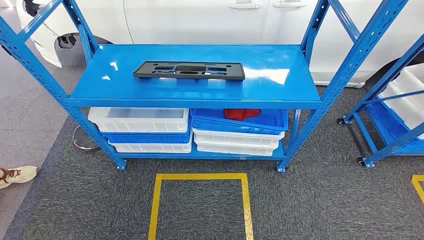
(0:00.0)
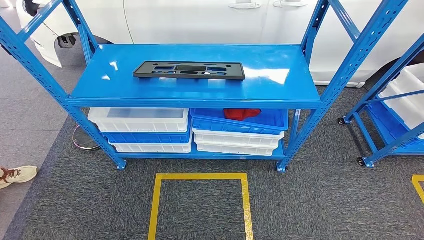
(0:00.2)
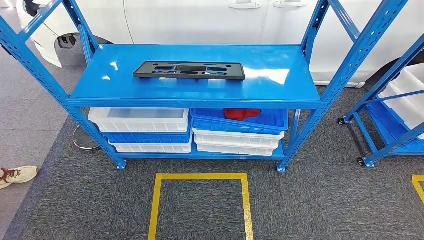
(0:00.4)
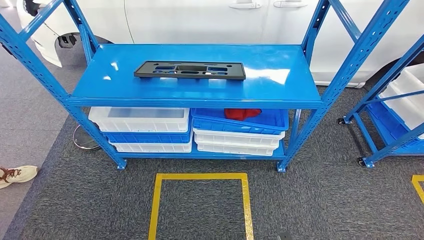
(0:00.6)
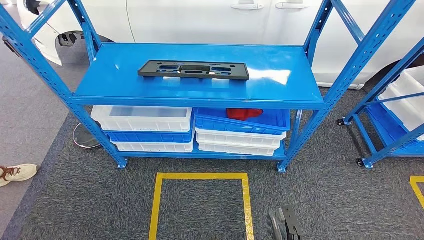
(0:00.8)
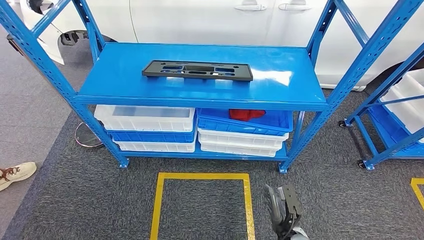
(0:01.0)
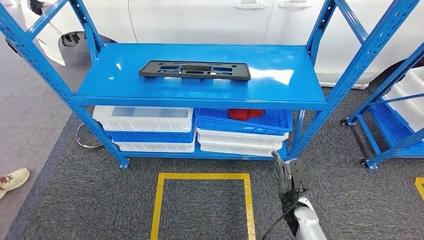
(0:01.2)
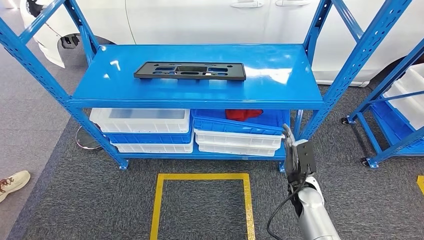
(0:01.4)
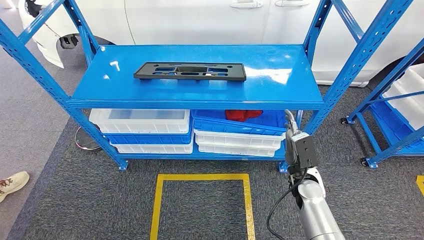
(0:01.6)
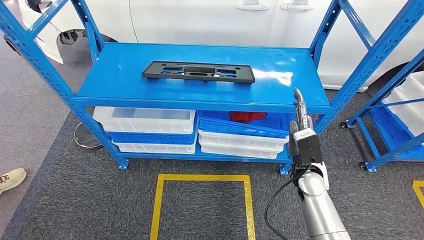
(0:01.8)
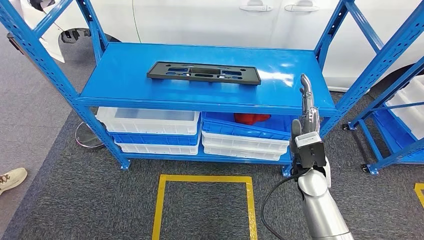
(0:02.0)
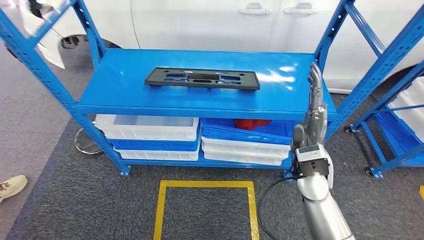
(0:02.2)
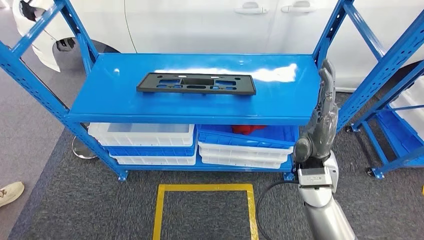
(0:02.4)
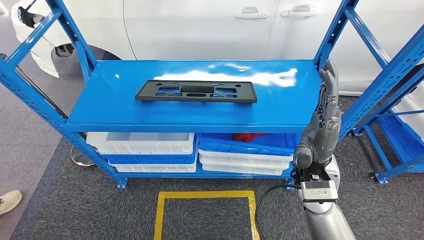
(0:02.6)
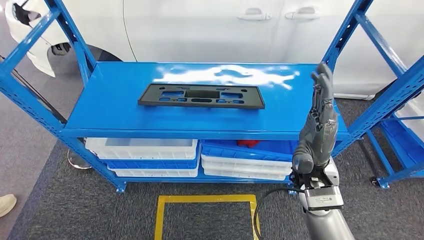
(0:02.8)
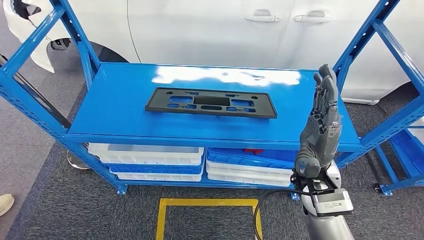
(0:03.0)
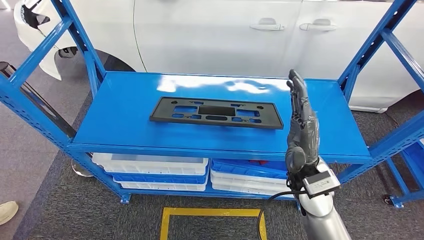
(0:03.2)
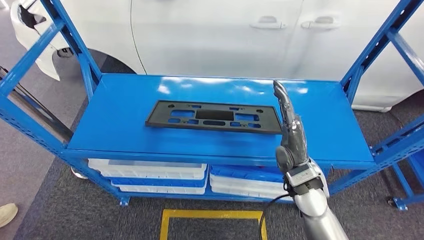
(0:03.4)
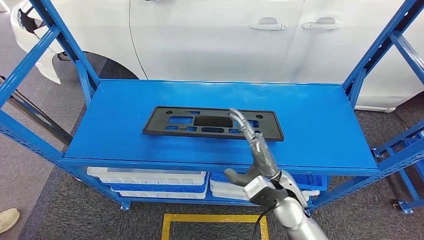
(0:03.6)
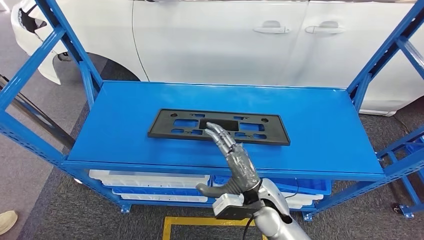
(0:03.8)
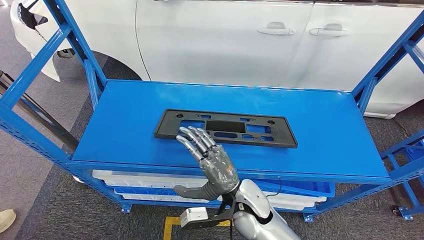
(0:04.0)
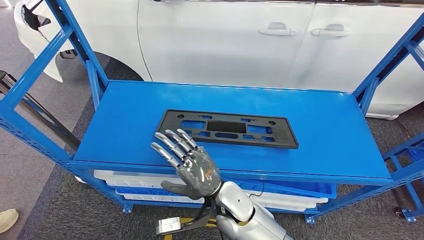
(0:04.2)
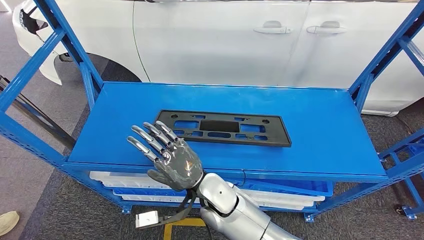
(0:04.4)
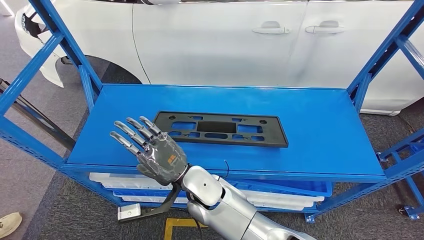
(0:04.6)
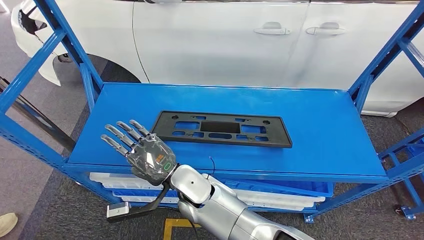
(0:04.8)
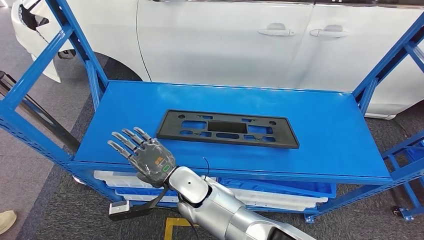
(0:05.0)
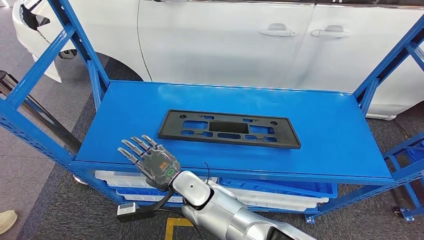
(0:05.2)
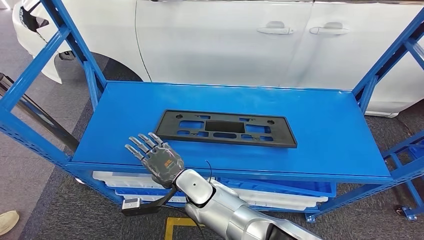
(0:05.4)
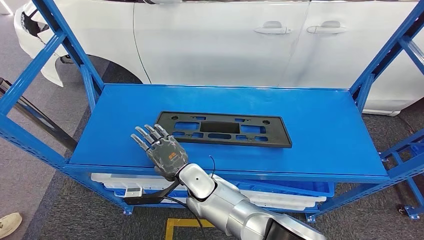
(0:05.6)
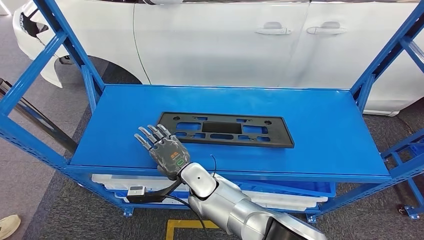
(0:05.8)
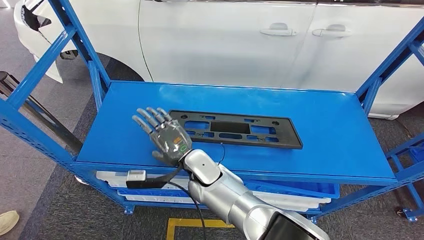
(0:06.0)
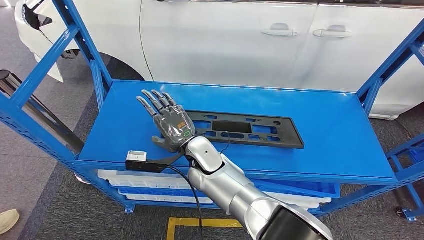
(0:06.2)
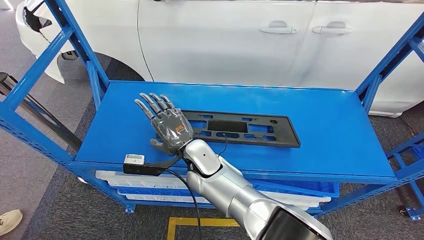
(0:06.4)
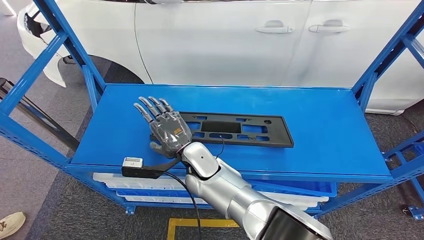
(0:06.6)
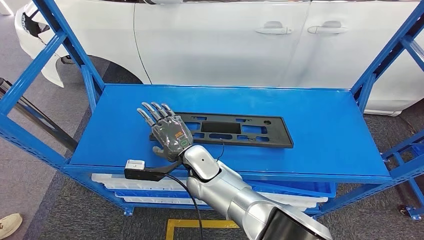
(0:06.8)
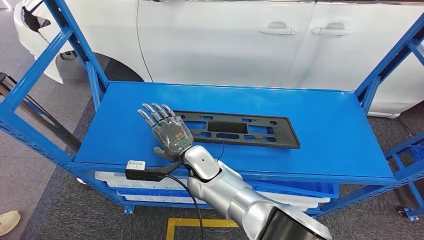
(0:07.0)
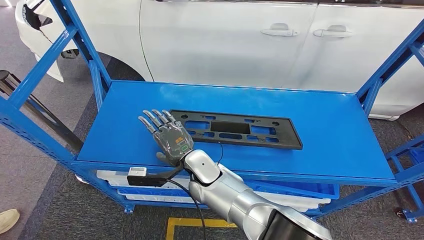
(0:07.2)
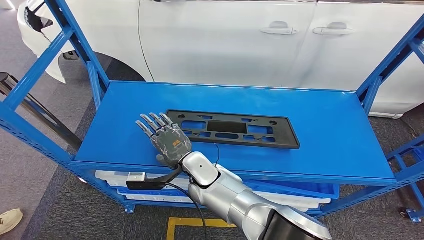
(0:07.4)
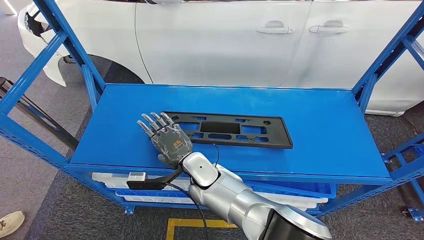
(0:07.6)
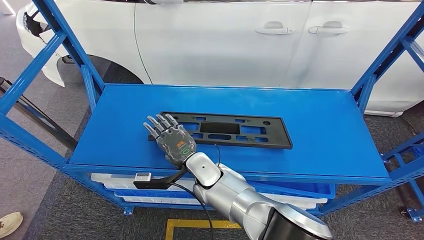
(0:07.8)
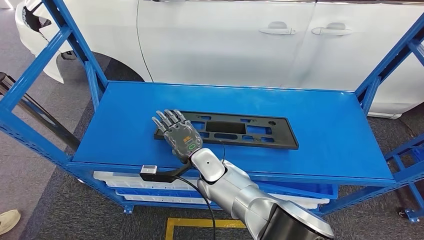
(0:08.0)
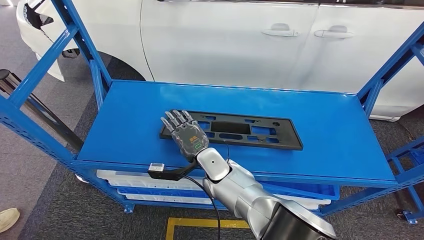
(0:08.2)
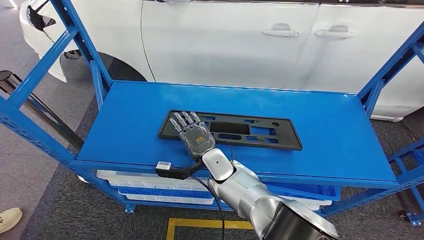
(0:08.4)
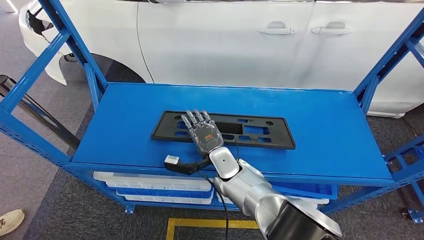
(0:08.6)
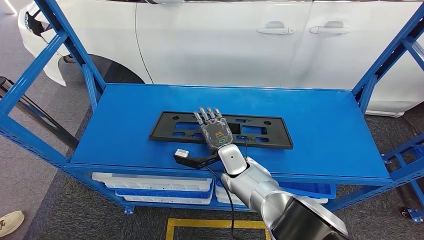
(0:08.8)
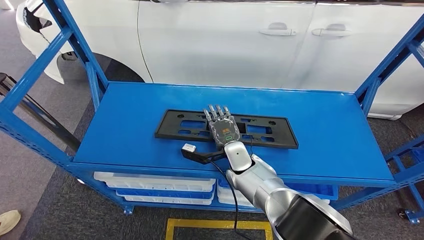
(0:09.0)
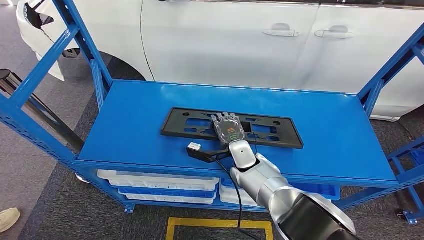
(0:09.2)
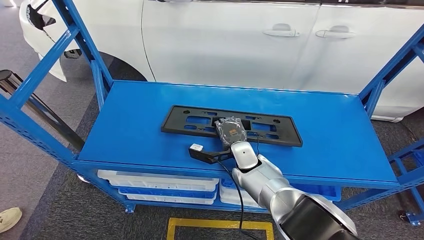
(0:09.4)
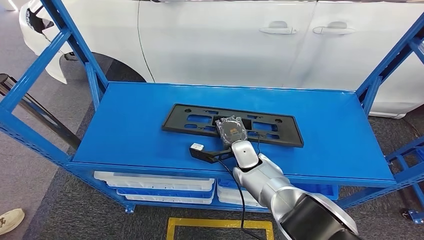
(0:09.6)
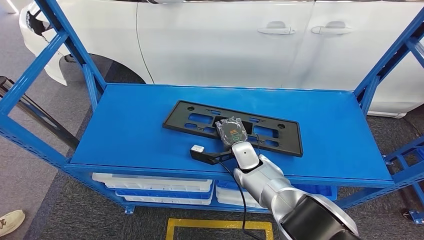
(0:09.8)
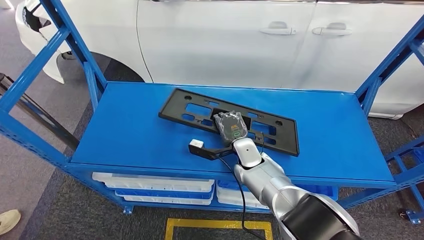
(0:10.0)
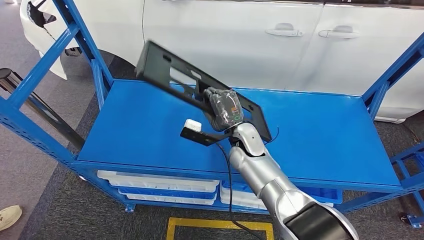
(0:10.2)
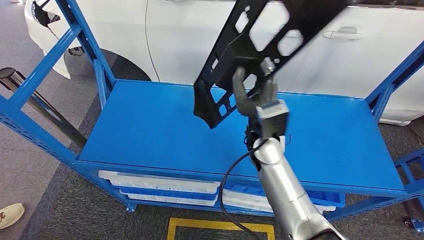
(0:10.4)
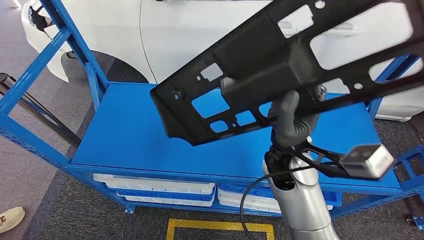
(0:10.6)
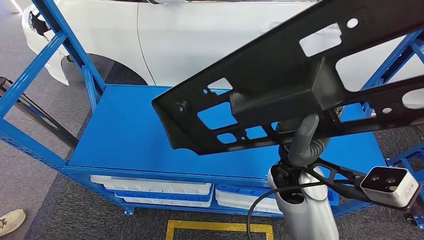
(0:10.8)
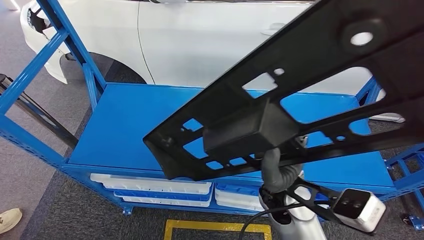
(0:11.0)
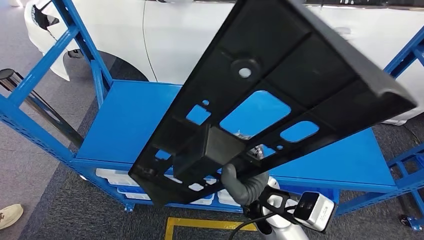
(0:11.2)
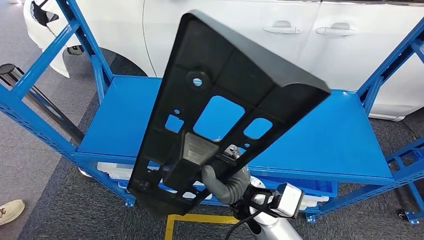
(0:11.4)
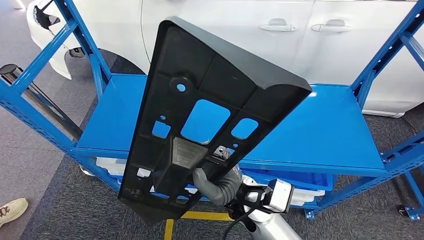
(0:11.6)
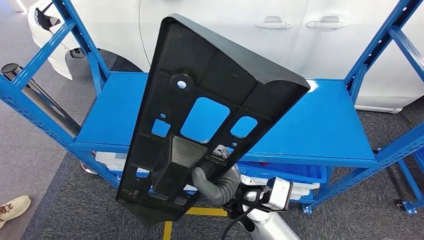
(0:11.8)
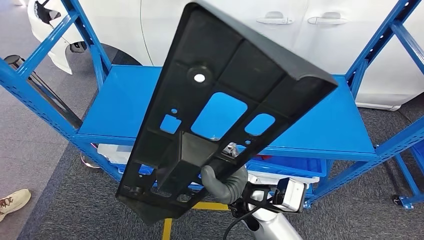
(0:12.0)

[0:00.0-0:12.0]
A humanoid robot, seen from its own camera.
Step, 0:00.0 to 0:10.2: Pick up the small parts from the shelf.
0:06.0 to 0:07.6: The hands move only a little.

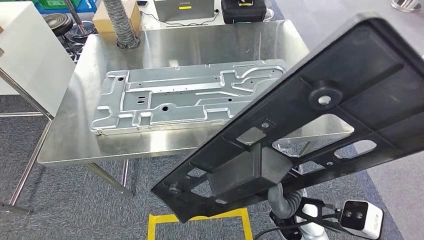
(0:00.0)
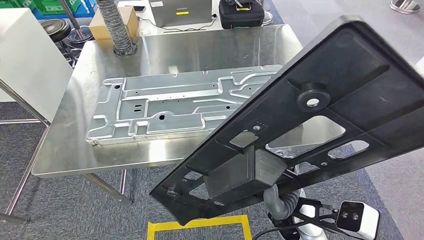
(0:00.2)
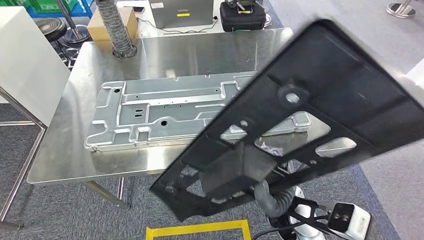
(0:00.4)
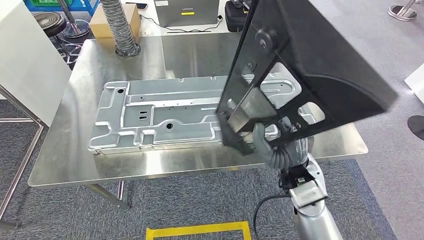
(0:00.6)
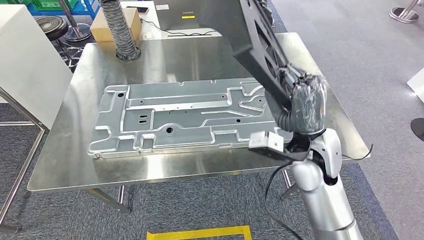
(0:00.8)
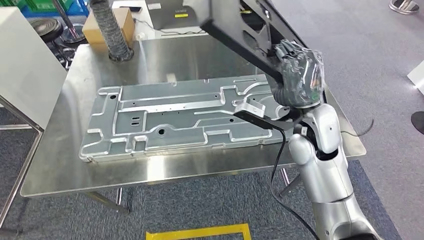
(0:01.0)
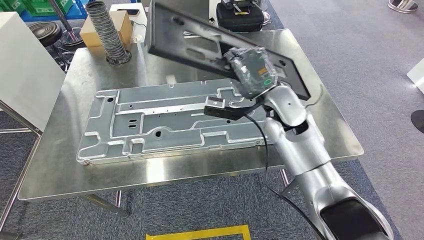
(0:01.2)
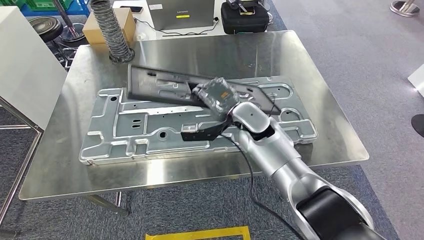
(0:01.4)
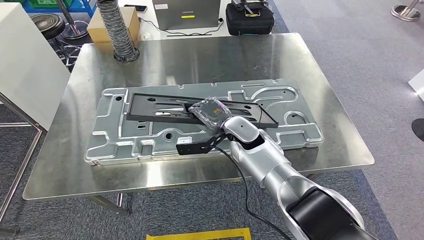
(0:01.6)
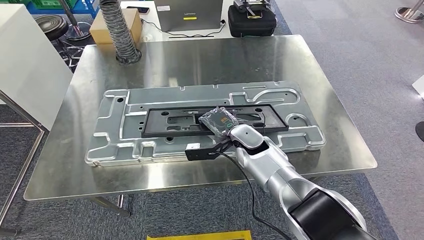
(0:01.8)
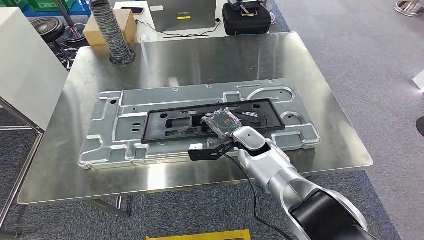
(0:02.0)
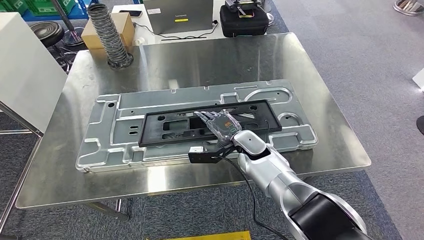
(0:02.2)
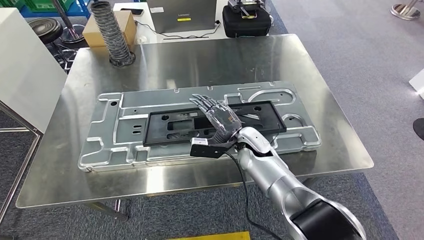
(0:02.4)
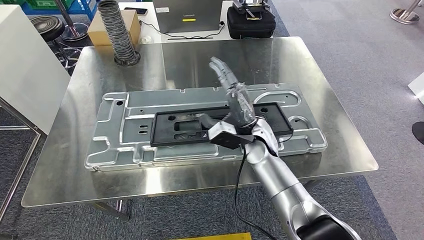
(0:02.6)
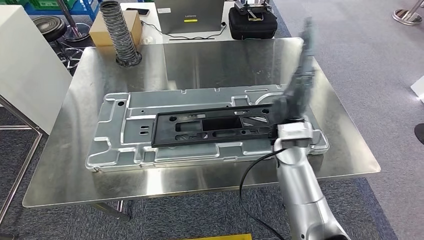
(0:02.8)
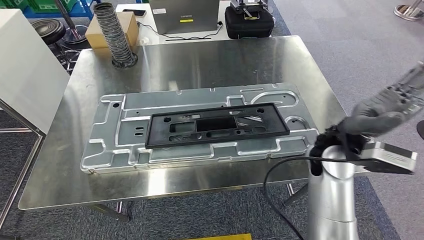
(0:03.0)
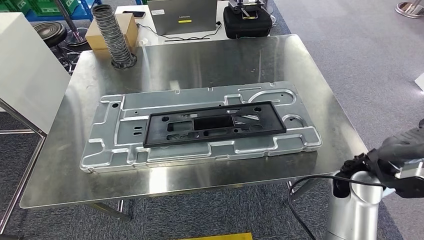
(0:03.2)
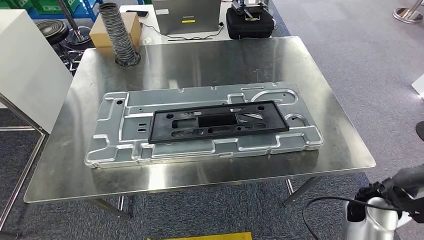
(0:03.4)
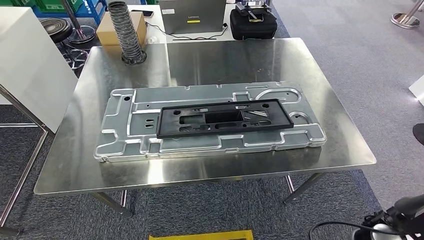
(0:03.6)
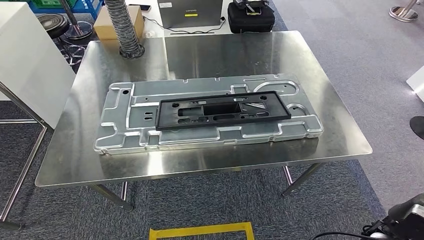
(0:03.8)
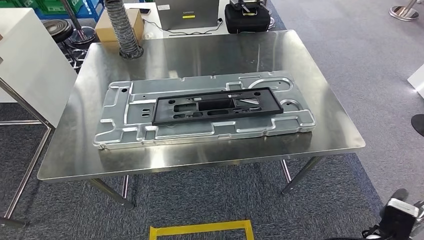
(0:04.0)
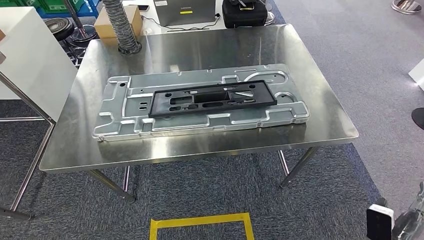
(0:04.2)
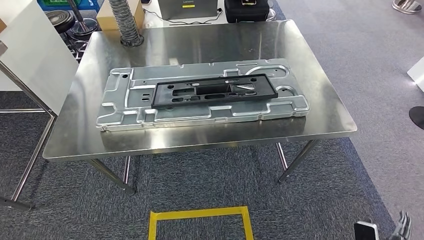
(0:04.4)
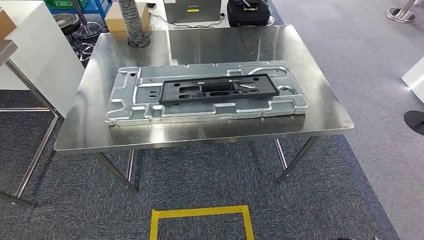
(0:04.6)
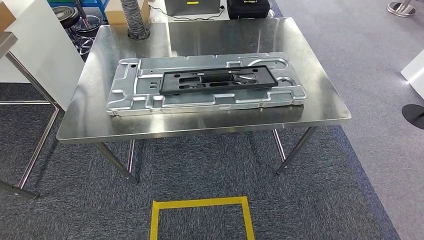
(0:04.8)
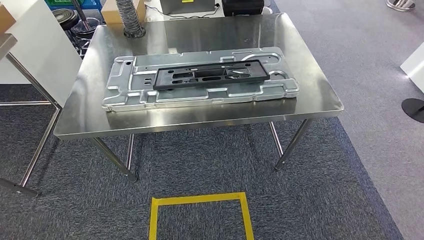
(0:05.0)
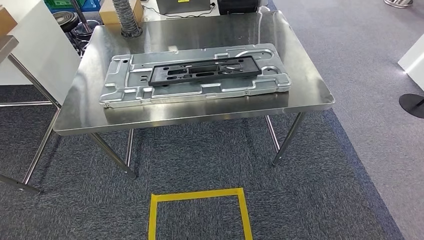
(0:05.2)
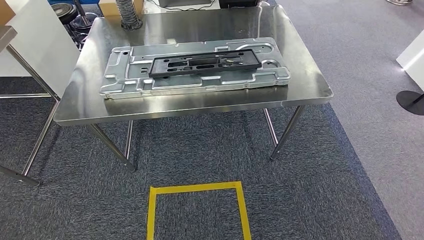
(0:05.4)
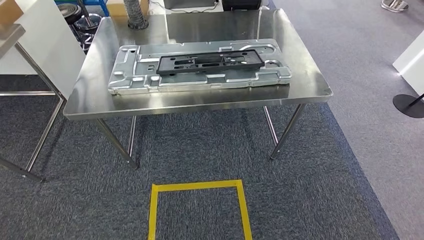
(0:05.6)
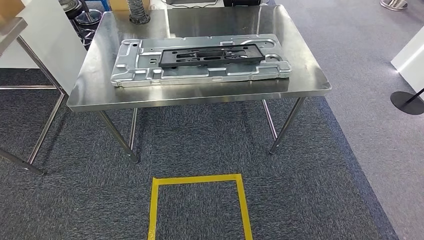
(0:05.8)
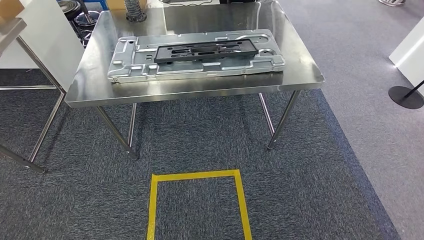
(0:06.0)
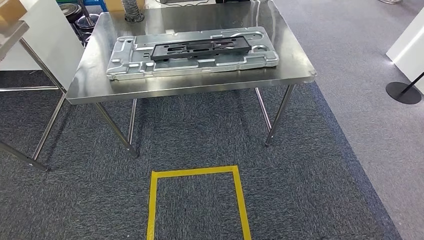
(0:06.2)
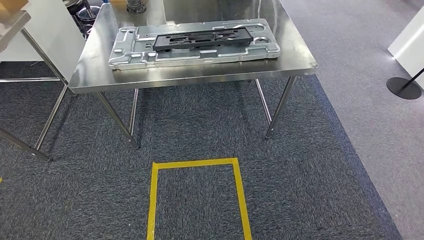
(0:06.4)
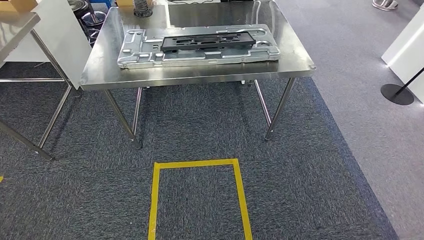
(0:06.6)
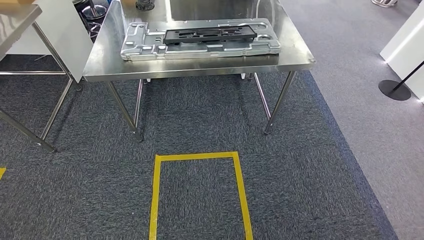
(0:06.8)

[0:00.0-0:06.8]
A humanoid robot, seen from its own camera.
Step, 0:01.0 to 0:03.8: Insert the small parts into the corresponding slots on the workbench.
Step, 0:04.0 to 0:06.8: Return to the initial position at the workbench.
